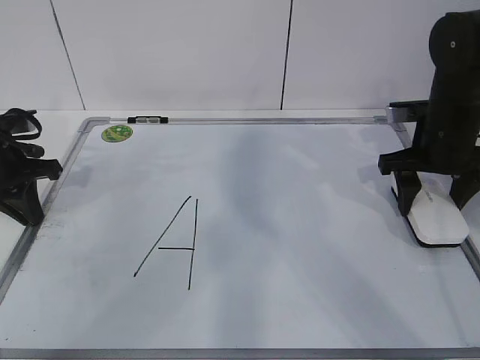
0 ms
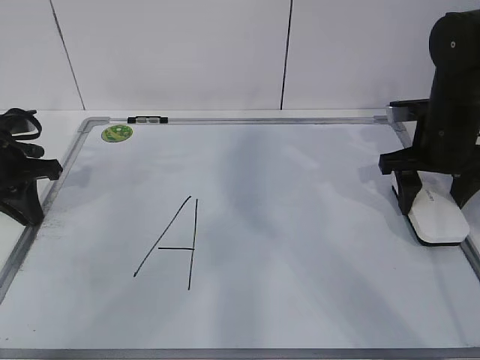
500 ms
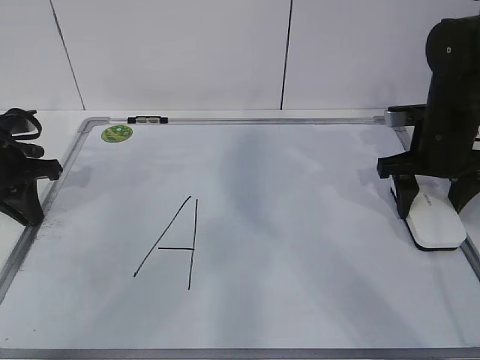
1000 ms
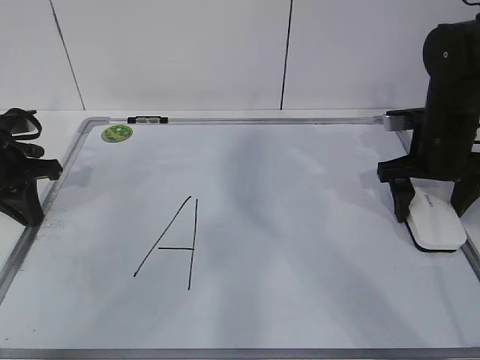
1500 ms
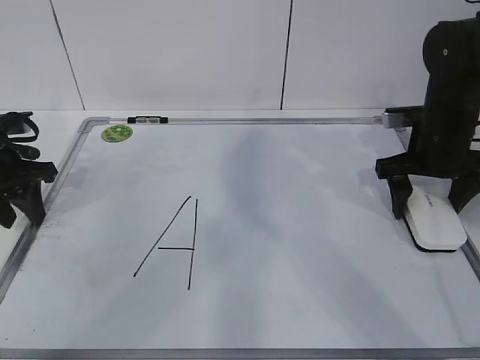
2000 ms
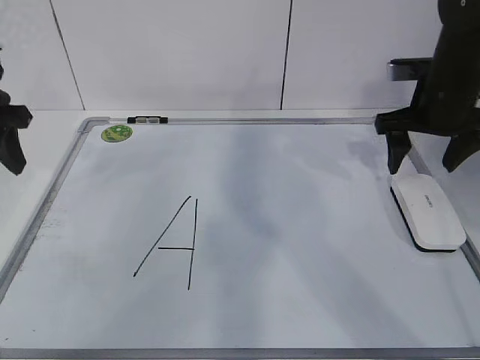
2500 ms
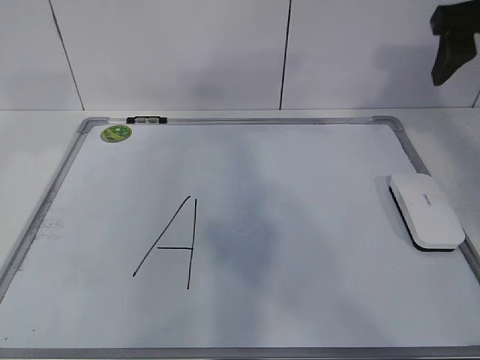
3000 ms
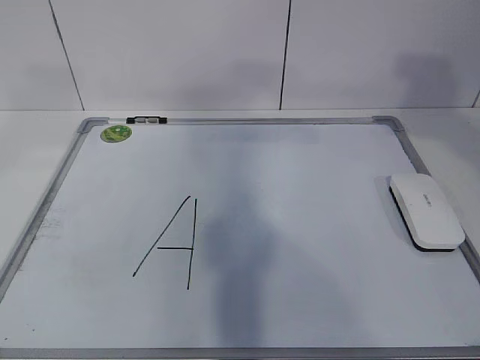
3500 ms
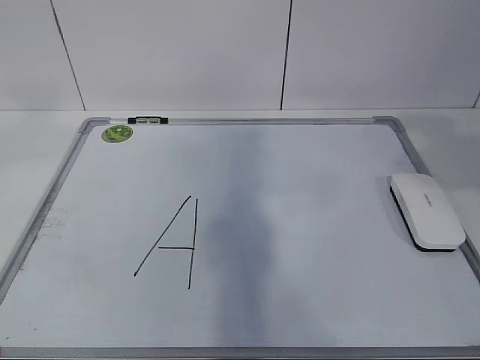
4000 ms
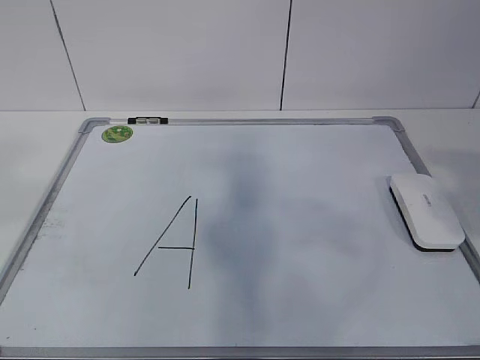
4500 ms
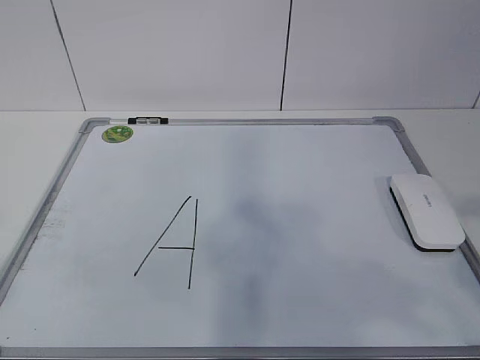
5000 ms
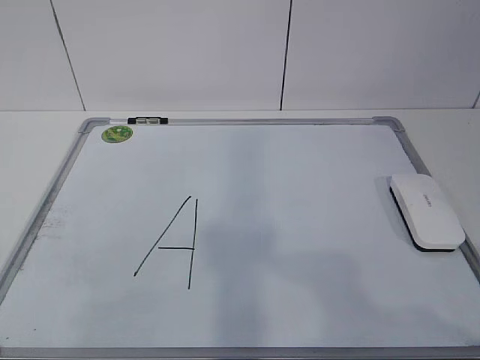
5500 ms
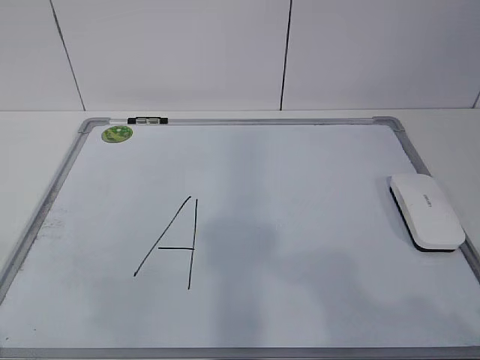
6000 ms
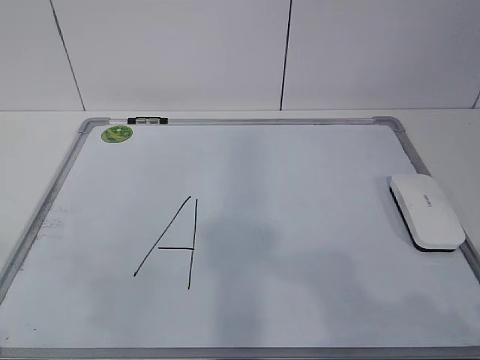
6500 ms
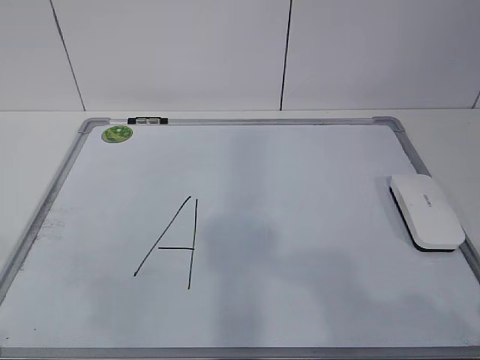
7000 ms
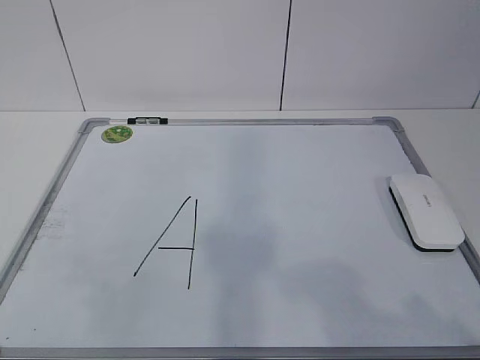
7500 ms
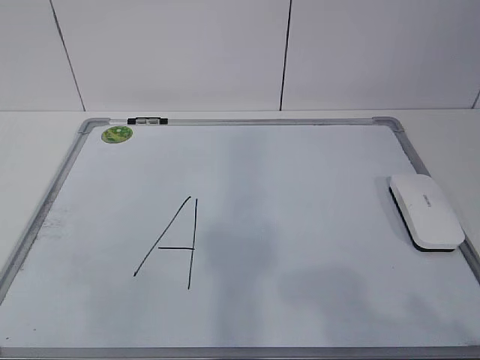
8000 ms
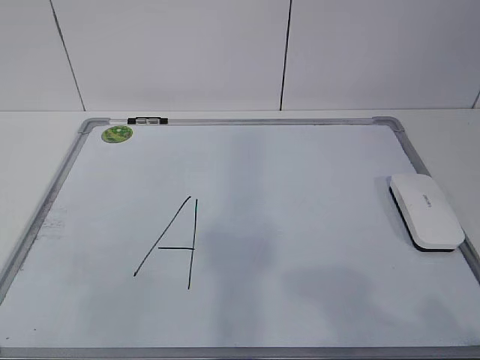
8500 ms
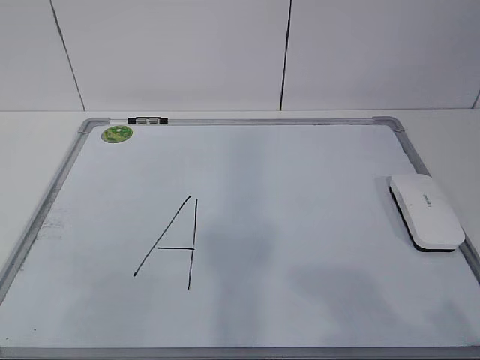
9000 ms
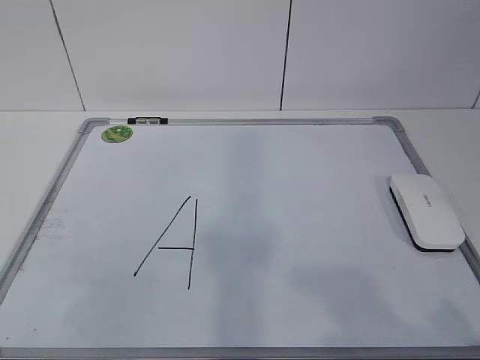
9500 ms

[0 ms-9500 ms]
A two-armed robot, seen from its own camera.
Task of the whole recording: pick up the eraser on the blackboard and erase the letter "a".
0 ms to 2000 ms: The left gripper opens its fingers. Meanwhile the right gripper opens up.
2000 ms to 4000 ms: The left gripper goes some 40 cm upward and backward. Meanwhile the right gripper moves backward and upward, approximately 30 cm, and closes its fingers.
4000 ms to 5500 ms: The left gripper moves downward and backward, some 20 cm, while the right gripper shifts about 20 cm backward and downward.

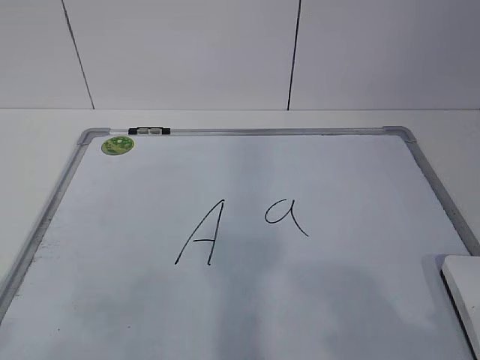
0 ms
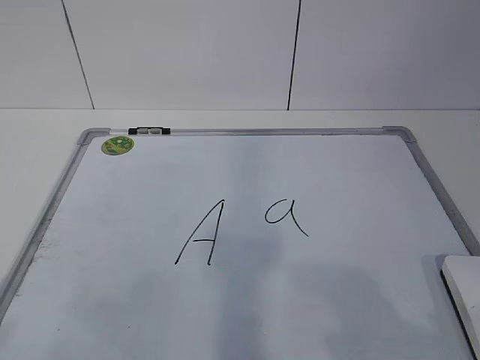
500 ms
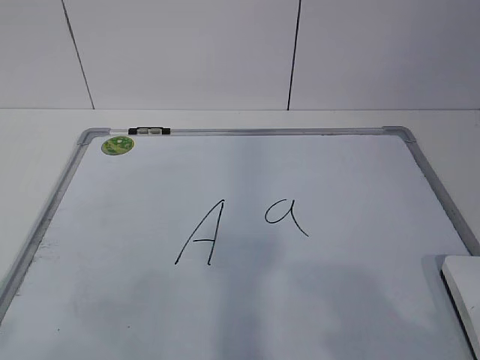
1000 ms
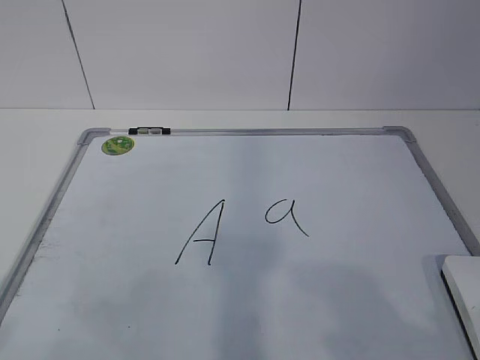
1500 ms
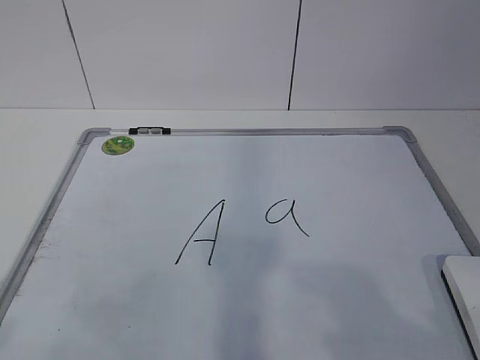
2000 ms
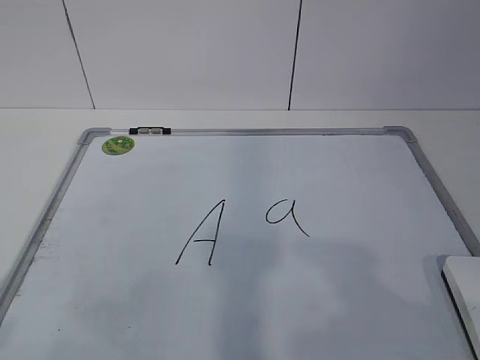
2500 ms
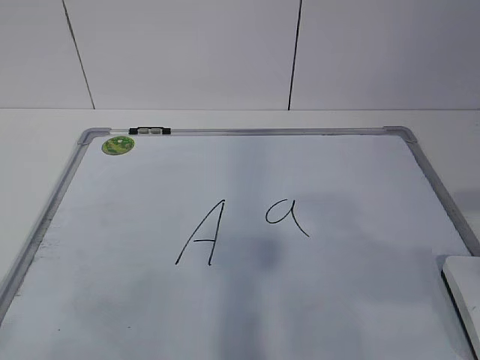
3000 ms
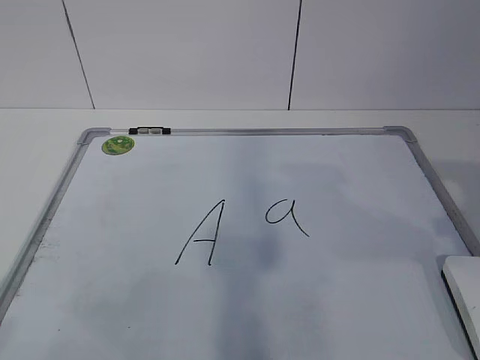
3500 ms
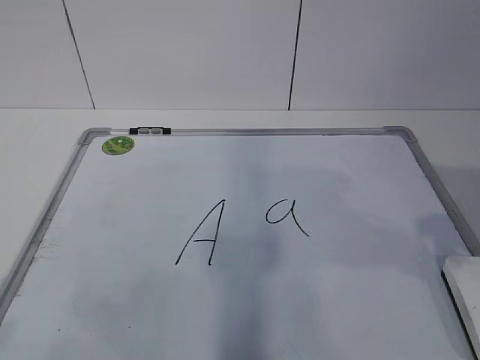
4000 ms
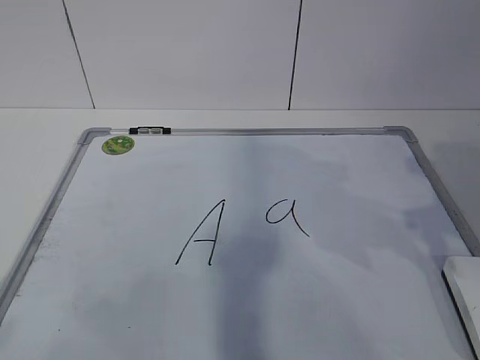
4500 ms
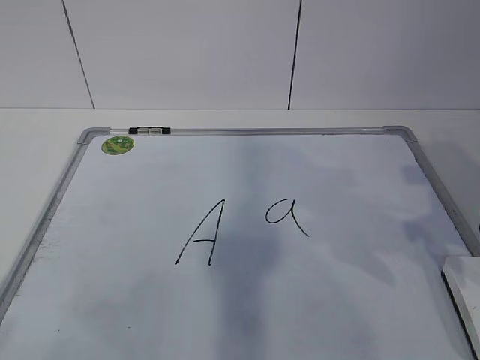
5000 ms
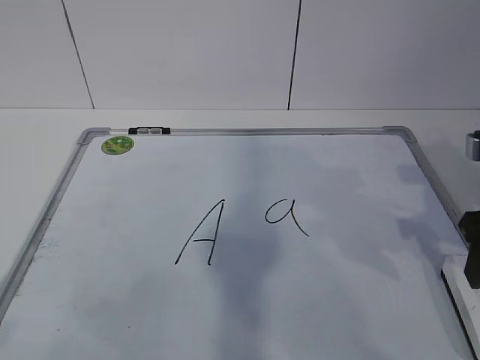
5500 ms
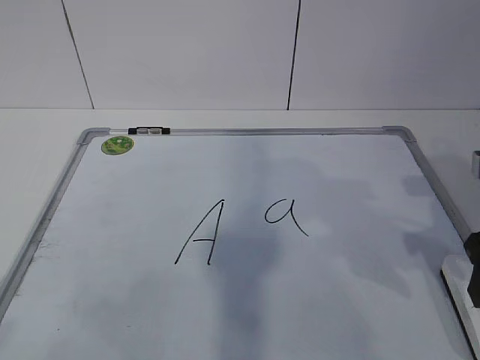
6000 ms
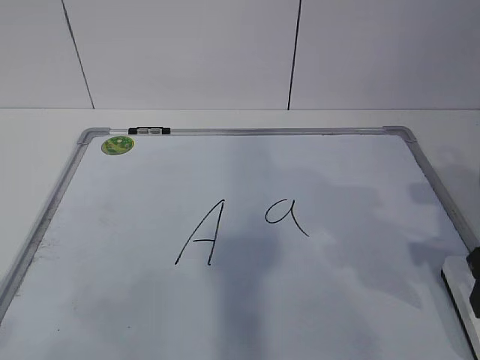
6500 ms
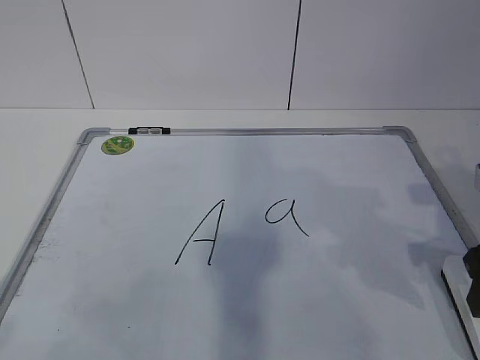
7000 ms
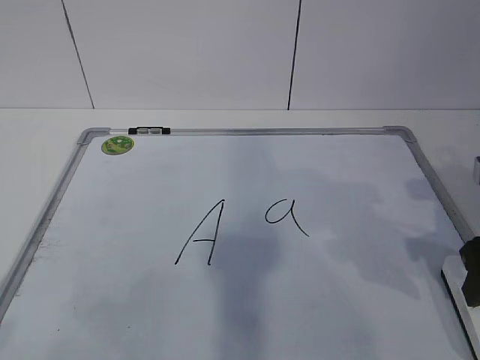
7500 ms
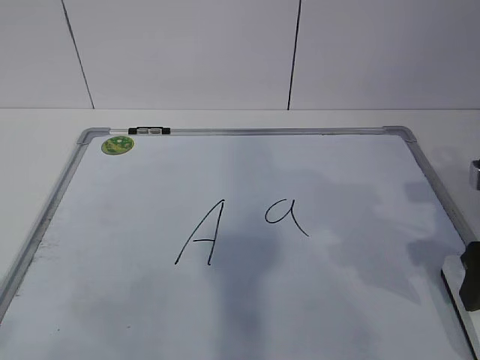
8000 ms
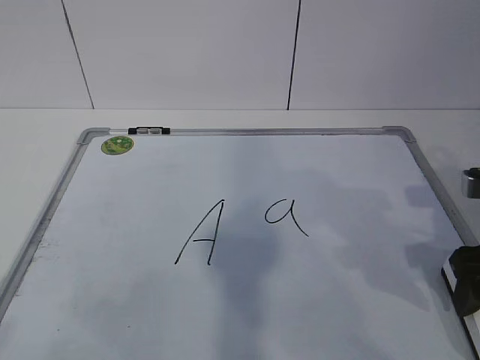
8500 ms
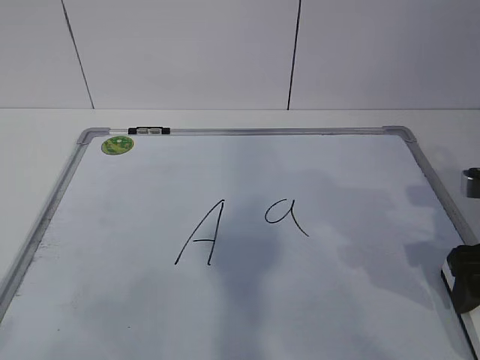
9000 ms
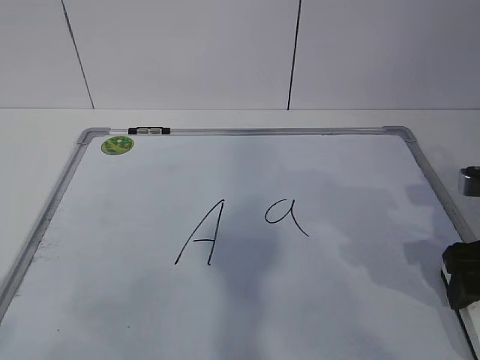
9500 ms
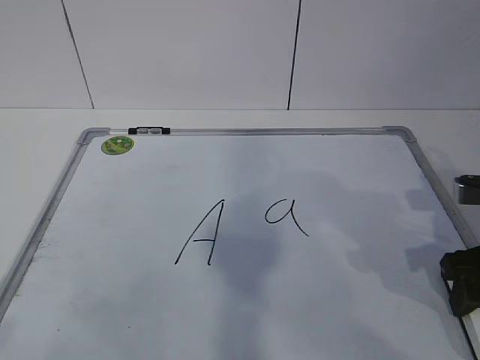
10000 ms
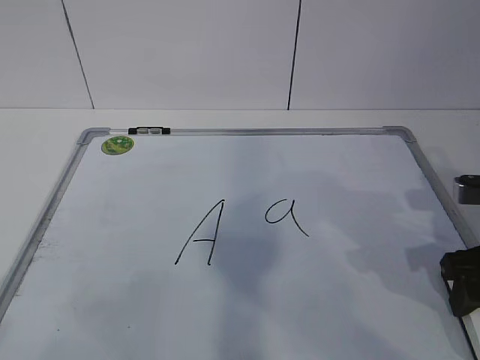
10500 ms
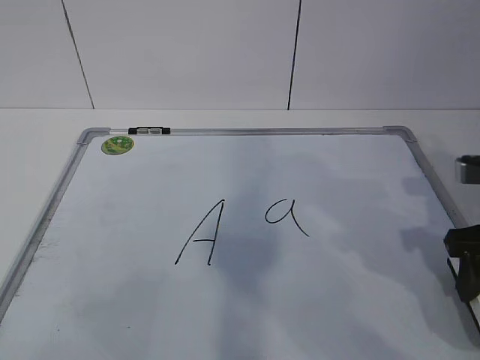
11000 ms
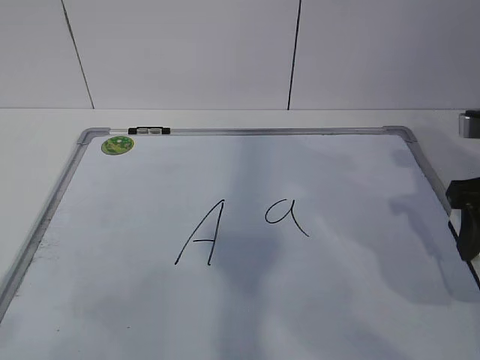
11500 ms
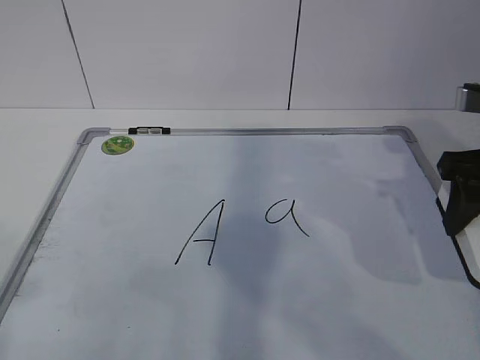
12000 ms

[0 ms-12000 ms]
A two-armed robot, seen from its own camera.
Task of the whole recording: pick up the eraser on the blackboard and erase the letter "a".
Step, 0 ms to 8000 ms: Grab the eraser with your right hand.
4000 ms to 6000 ms: The right gripper moves downward and forward, some 10 cm.
8000 ms to 10000 ms: The right gripper closes.
10000 ms to 12000 ms: The right gripper shifts approximately 10 cm upward.

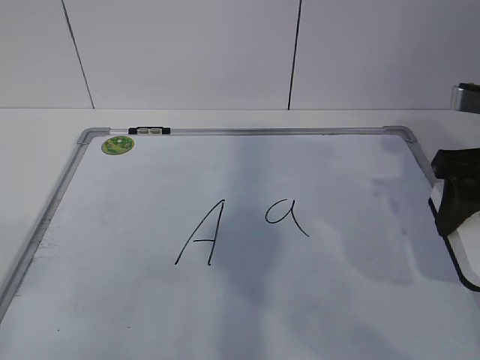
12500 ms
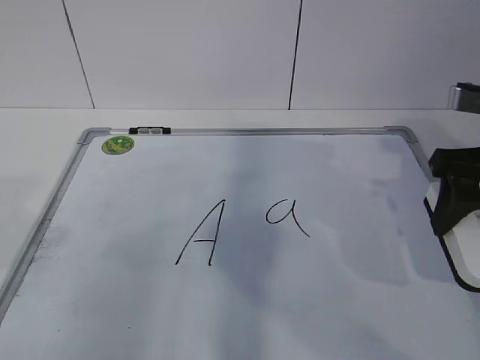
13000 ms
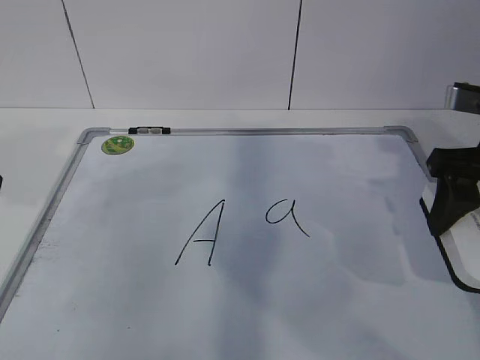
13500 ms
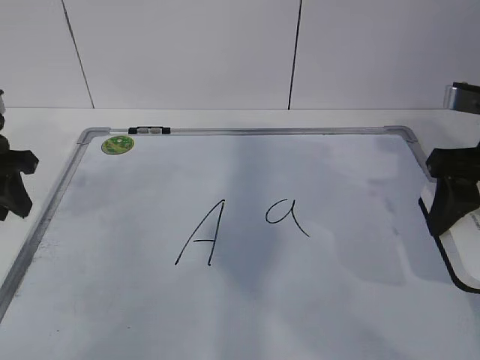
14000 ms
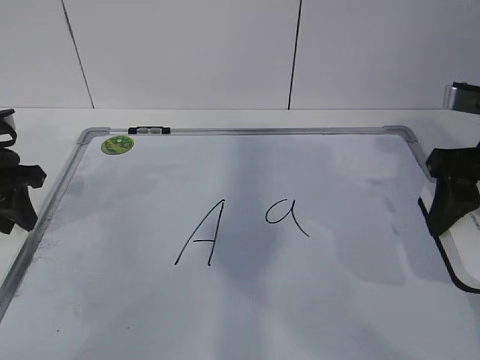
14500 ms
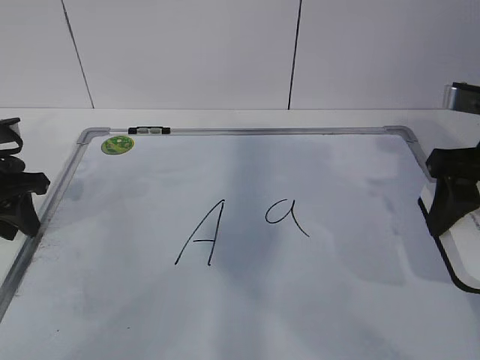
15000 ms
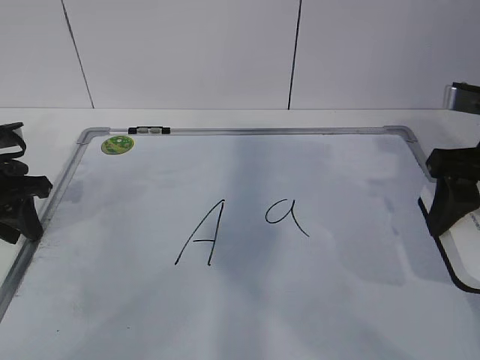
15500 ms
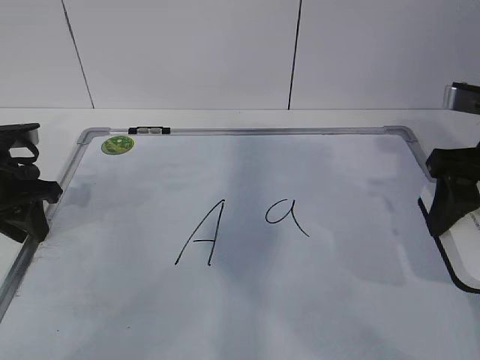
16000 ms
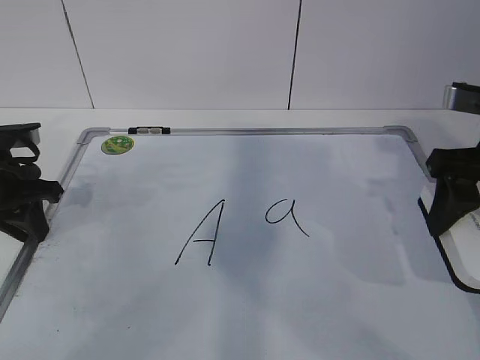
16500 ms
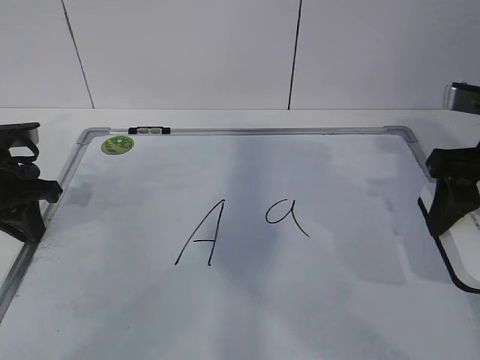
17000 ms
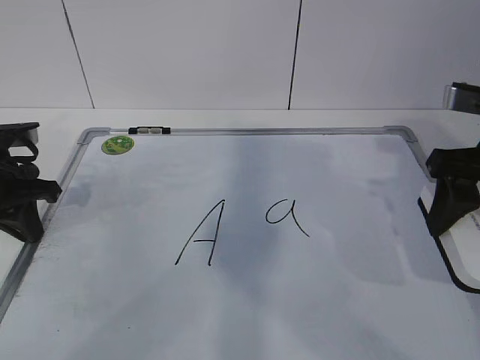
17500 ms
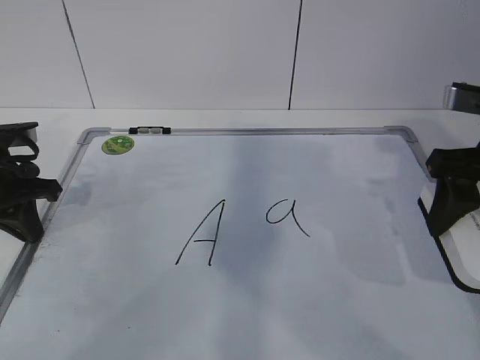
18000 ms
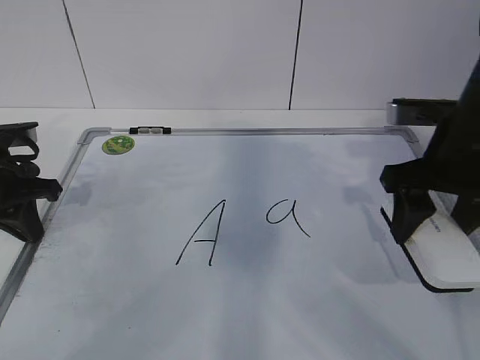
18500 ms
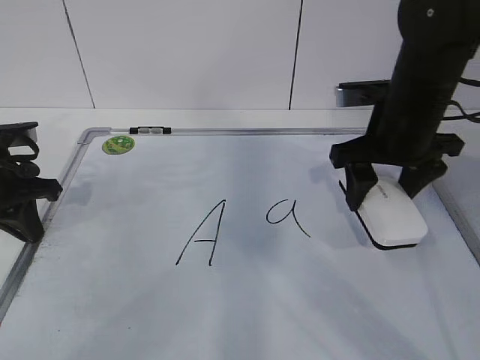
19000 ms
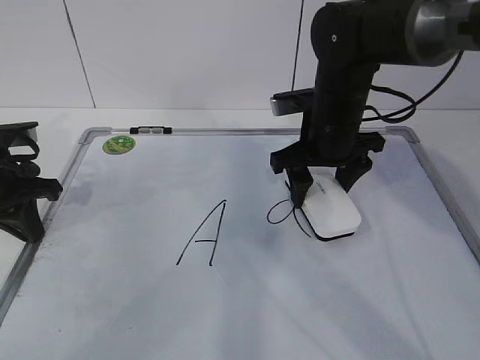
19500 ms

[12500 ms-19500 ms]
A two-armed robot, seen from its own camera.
Task of the whole recording: pick up the eraser on the blackboard and erase the letter "a".
12500 ms to 14500 ms: The left gripper moves forward and downward, some 35 cm.
14500 ms to 16000 ms: The grippers stay close to where they were, moving slightly.
17500 ms to 19500 ms: The right gripper travels to the left, forward and downward by some 20 cm.
